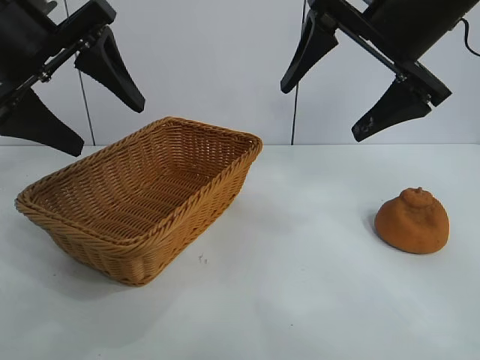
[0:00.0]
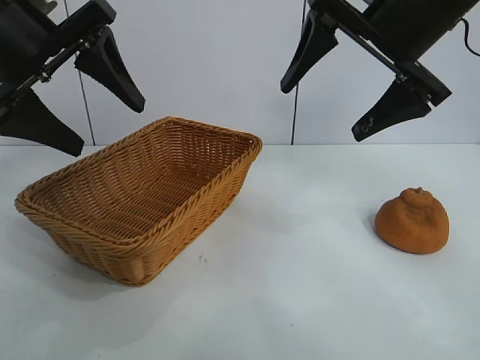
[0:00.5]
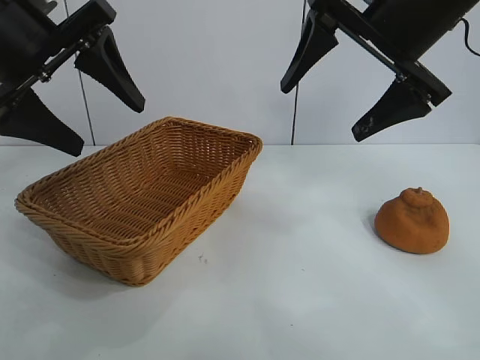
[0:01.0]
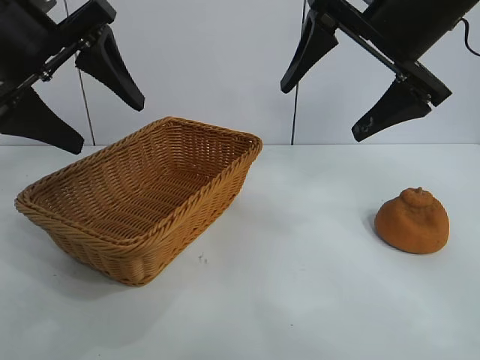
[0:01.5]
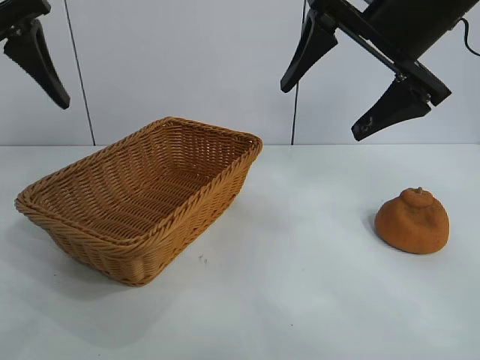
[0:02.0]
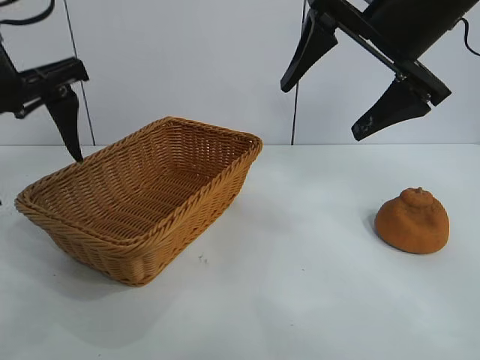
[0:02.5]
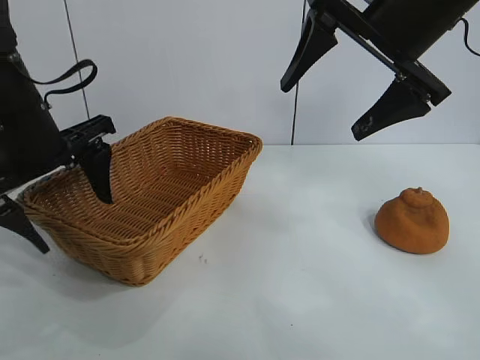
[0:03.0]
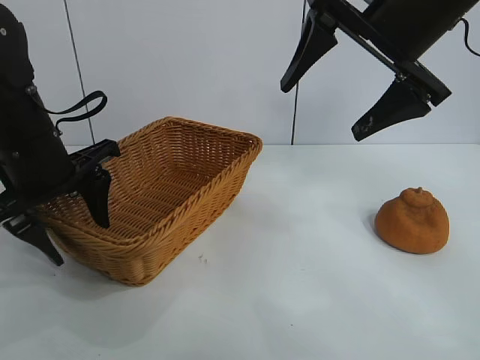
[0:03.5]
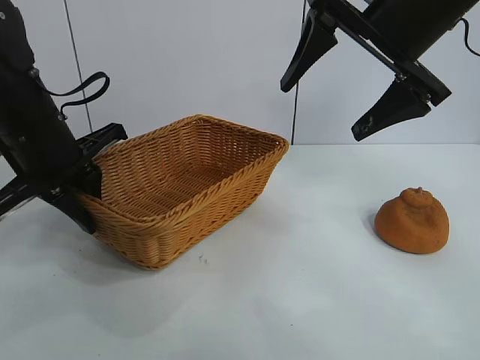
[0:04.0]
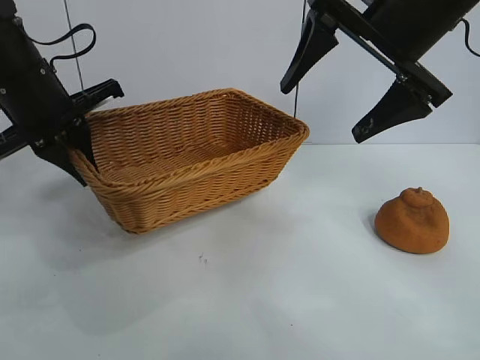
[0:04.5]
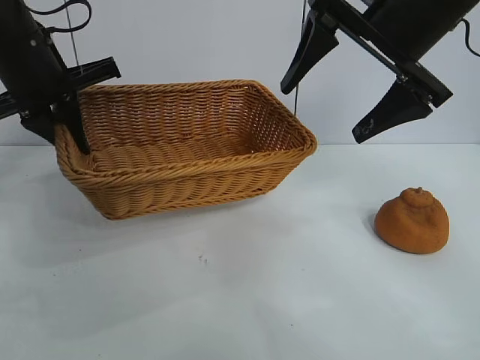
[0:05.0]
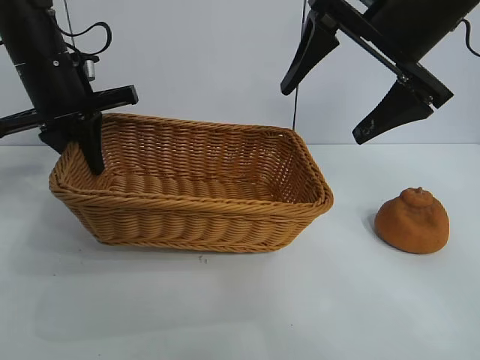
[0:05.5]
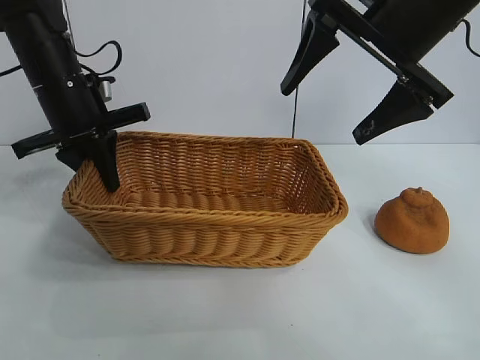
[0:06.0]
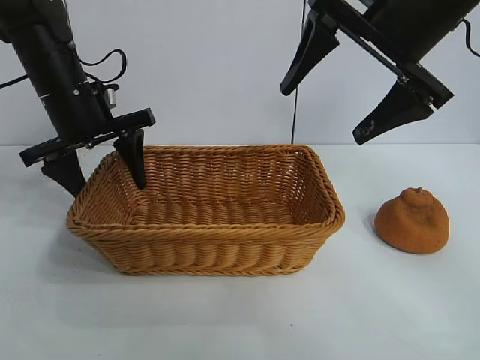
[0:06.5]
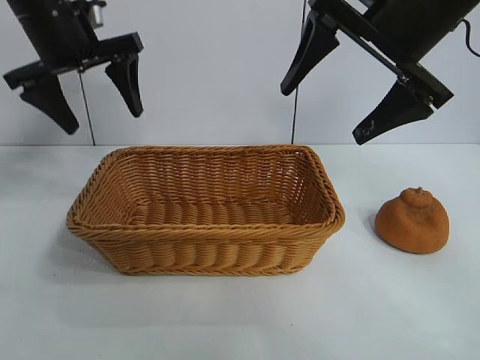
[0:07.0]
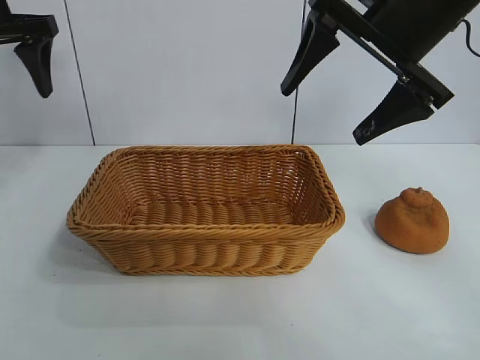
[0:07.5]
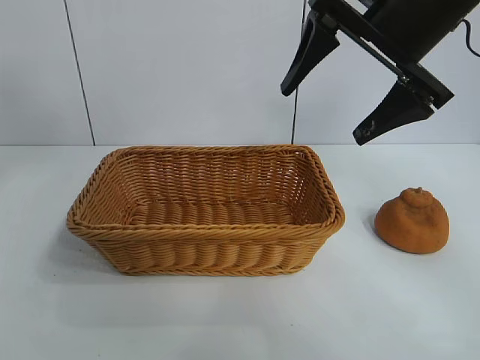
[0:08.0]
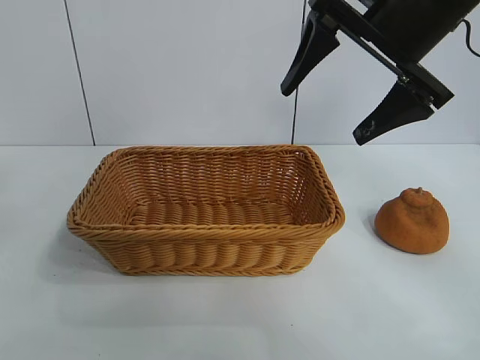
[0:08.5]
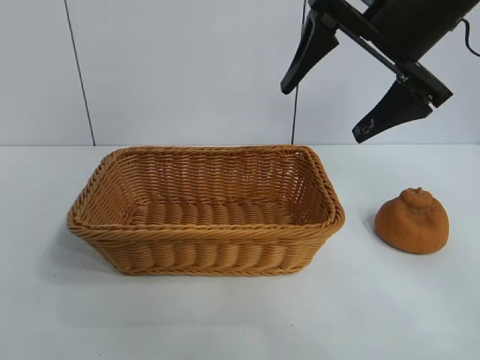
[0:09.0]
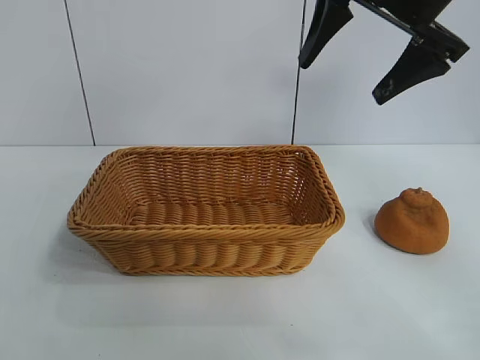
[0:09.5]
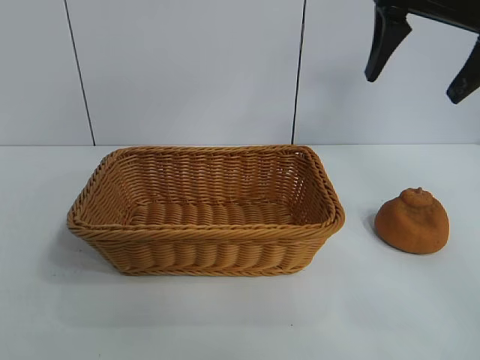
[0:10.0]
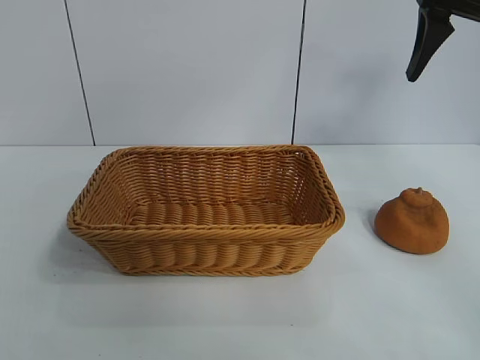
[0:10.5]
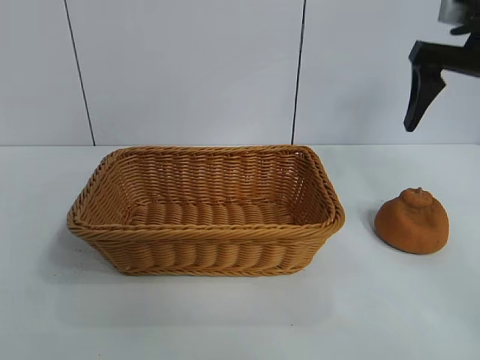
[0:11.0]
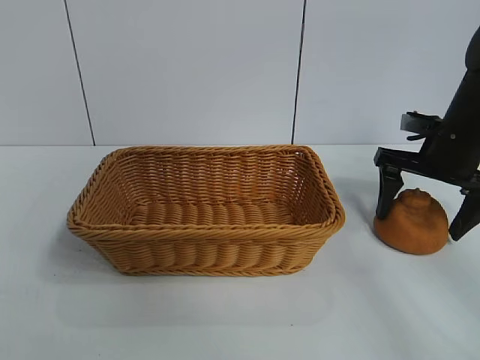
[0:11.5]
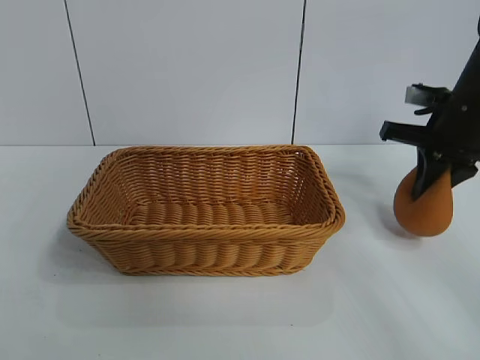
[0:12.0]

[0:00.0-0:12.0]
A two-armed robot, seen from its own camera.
Task of the whole recording: pick up the orange and put it into the basket.
Step, 0:01.5 to 0:03.5: Grasp the basket with left gripper.
Step, 0:04.0 to 0:06.5: Place the basket in the center of view with left gripper.
Step, 0:07.0 to 0:11.5: Grasp the orange with right gripper.

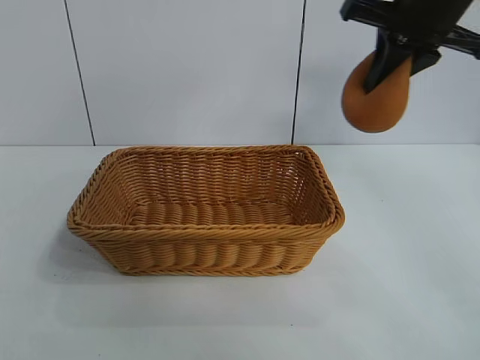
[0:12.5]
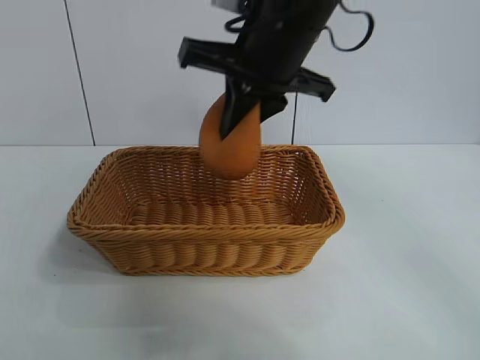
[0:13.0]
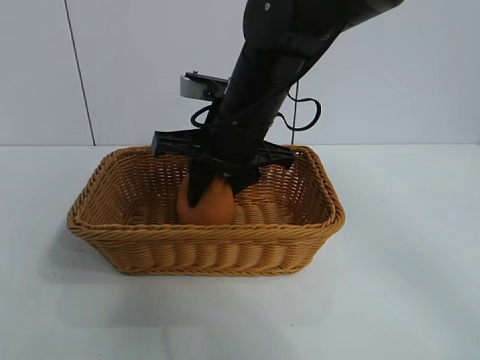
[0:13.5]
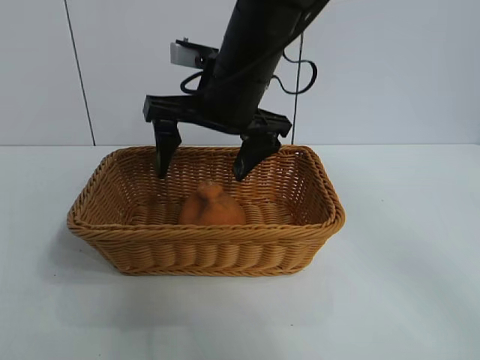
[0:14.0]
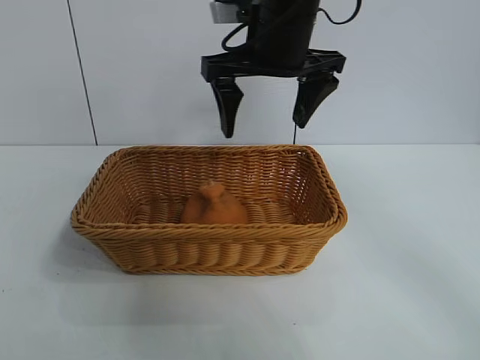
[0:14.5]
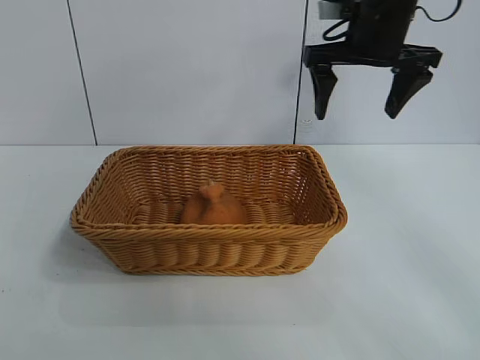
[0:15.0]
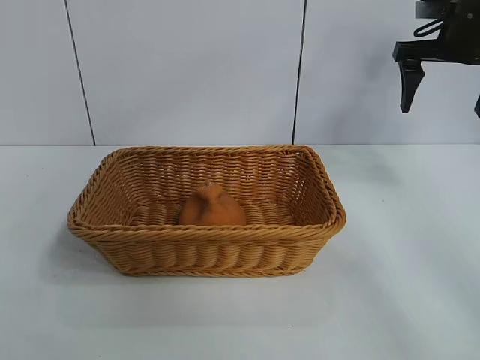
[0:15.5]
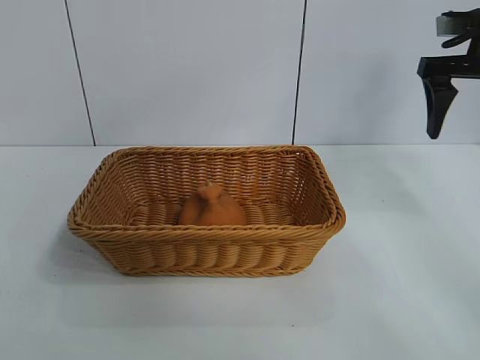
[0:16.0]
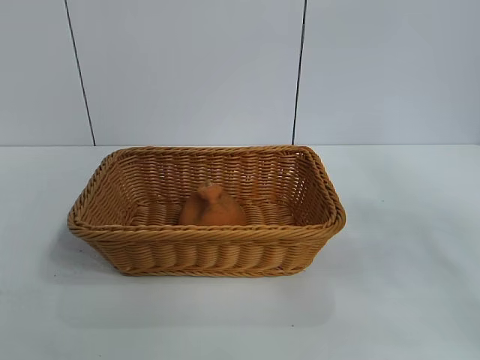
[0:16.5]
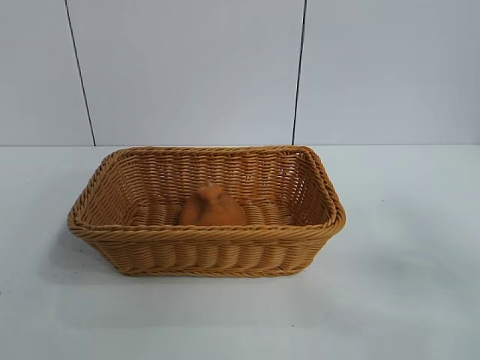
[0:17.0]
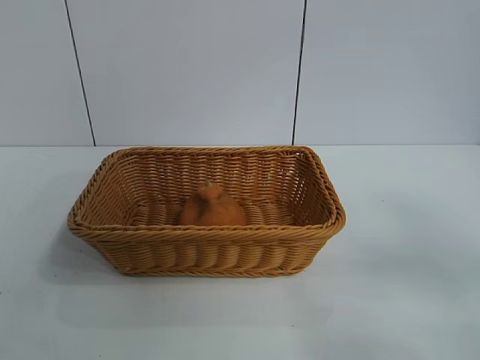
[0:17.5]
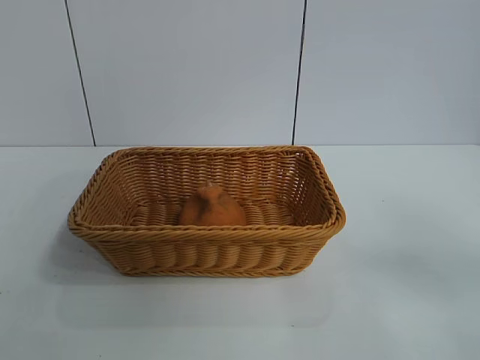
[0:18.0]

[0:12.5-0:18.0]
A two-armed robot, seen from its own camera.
Task of the whole recording: pick up the orange and put it into the basket.
Step, 0:12.5 to 0:14.0: Place the orange in the basket with right gripper.
